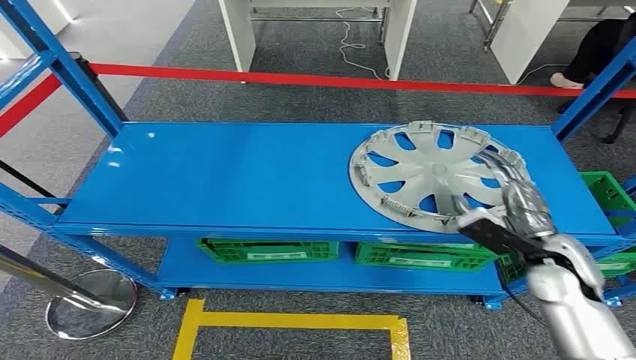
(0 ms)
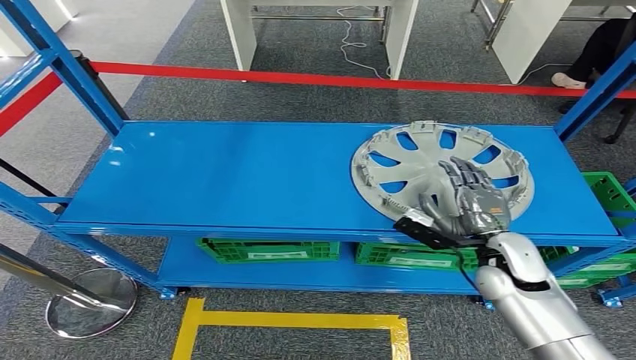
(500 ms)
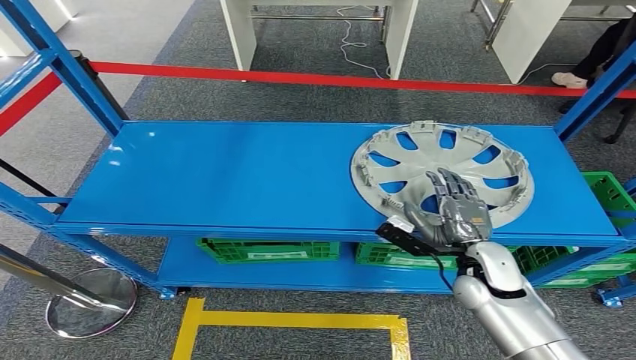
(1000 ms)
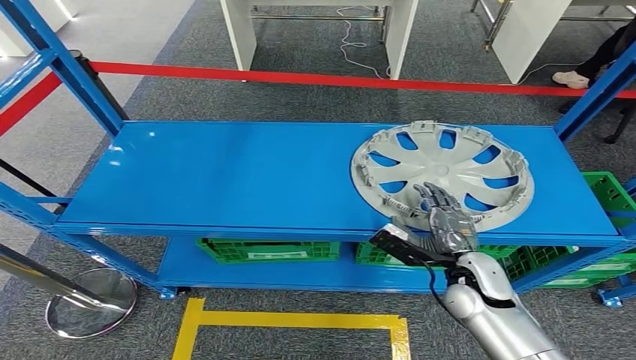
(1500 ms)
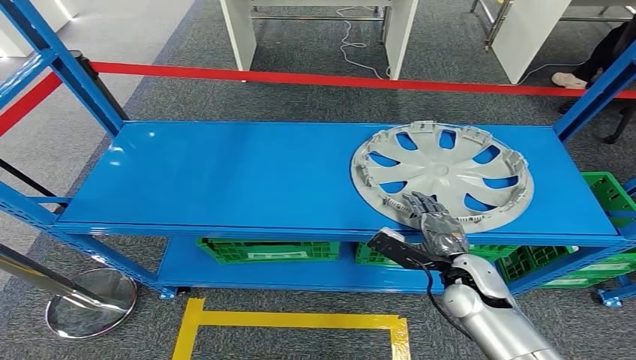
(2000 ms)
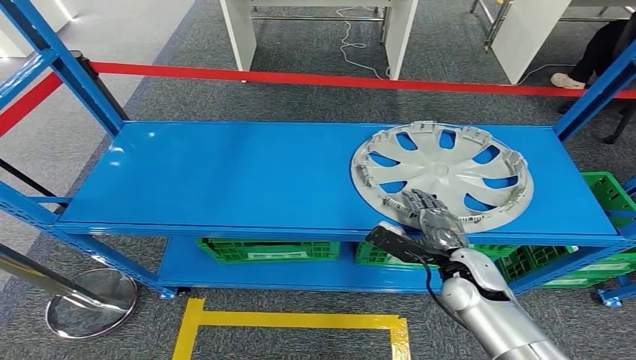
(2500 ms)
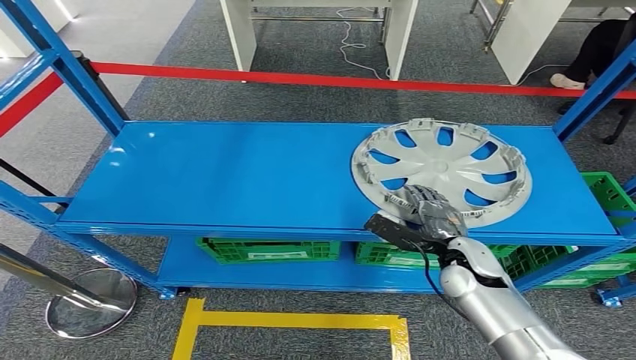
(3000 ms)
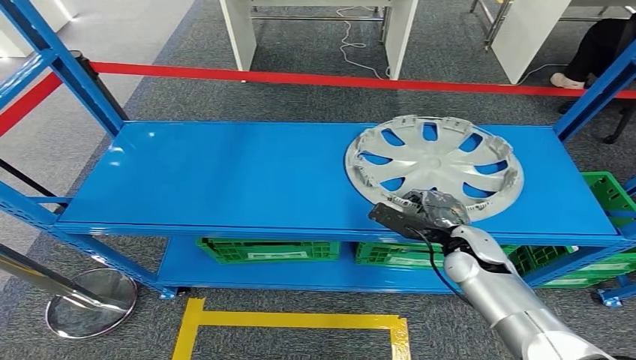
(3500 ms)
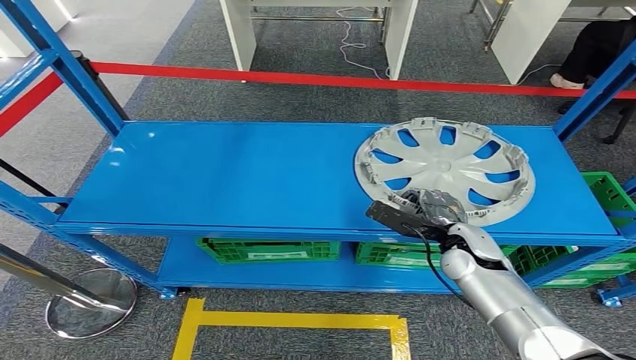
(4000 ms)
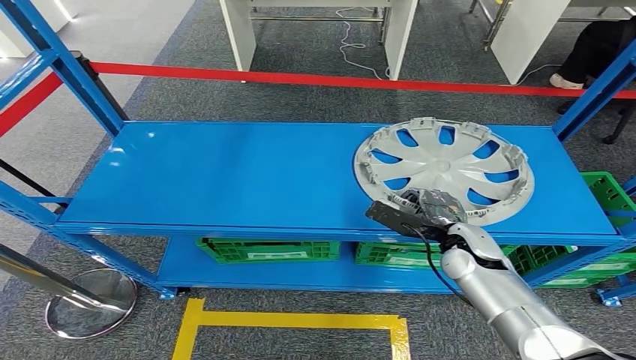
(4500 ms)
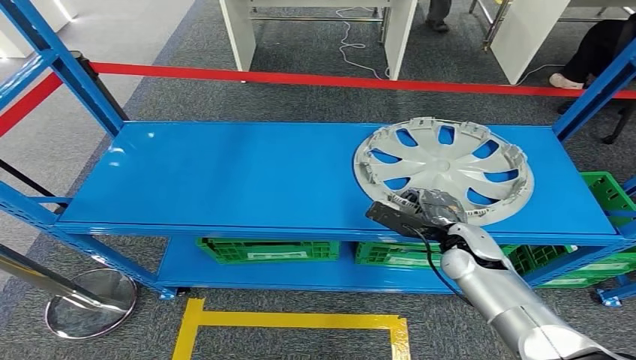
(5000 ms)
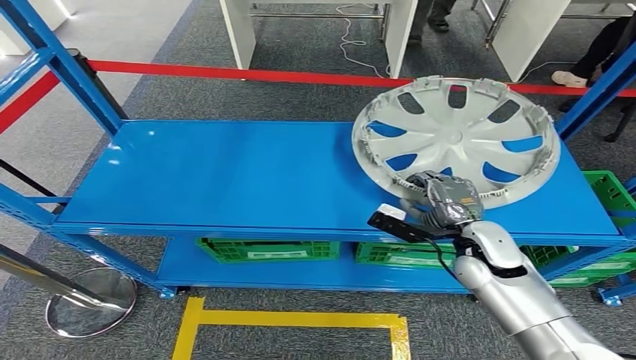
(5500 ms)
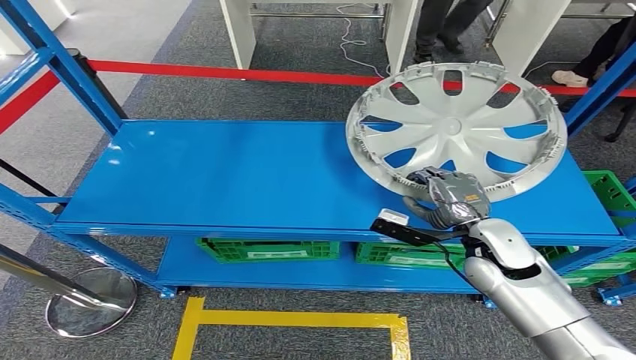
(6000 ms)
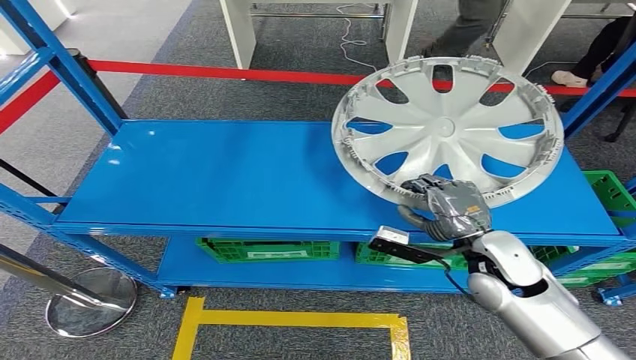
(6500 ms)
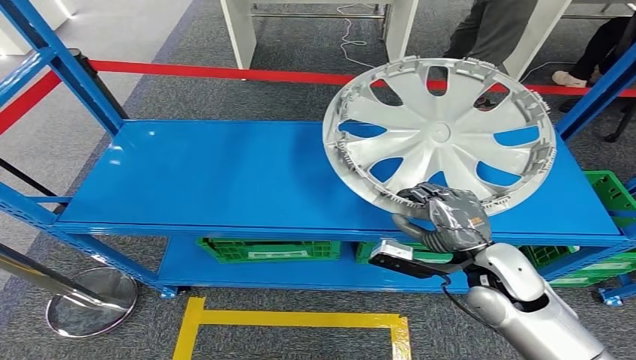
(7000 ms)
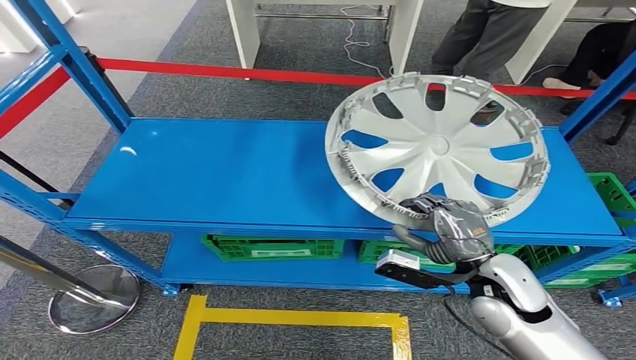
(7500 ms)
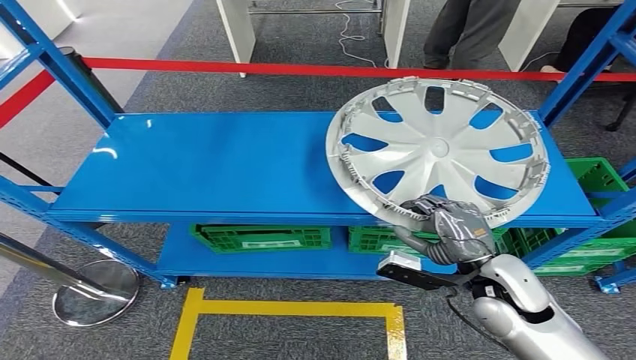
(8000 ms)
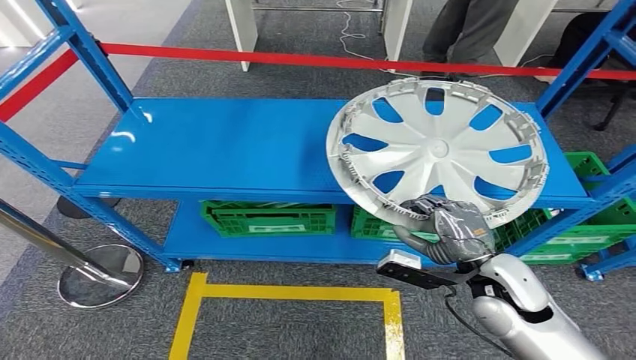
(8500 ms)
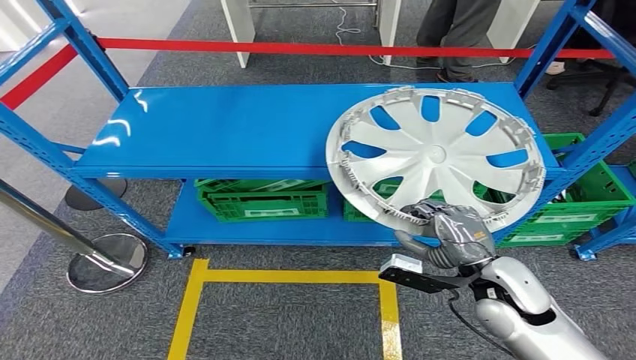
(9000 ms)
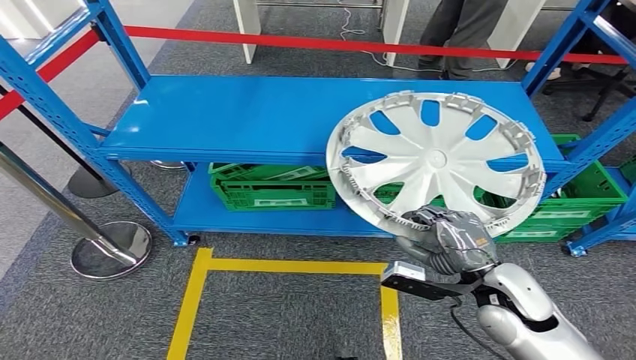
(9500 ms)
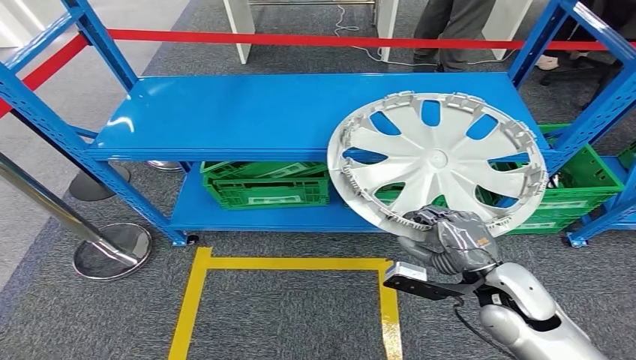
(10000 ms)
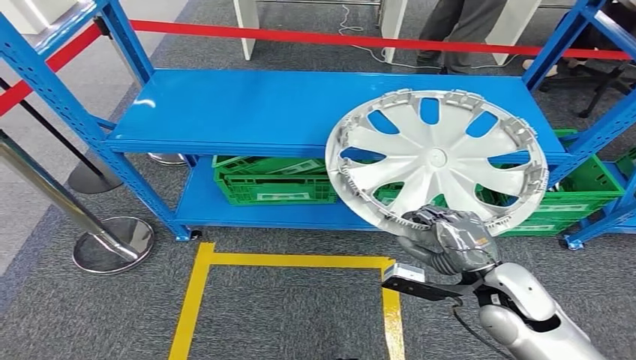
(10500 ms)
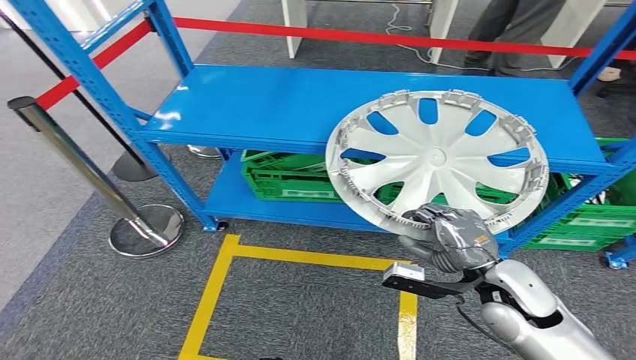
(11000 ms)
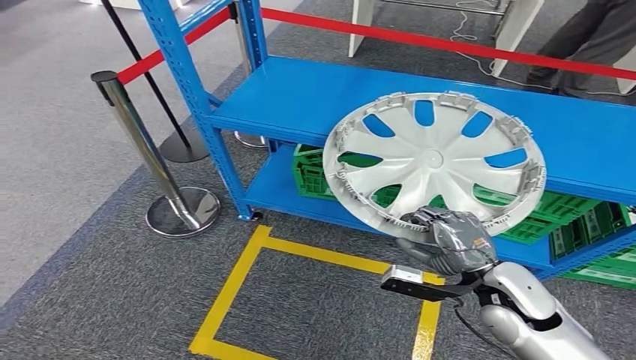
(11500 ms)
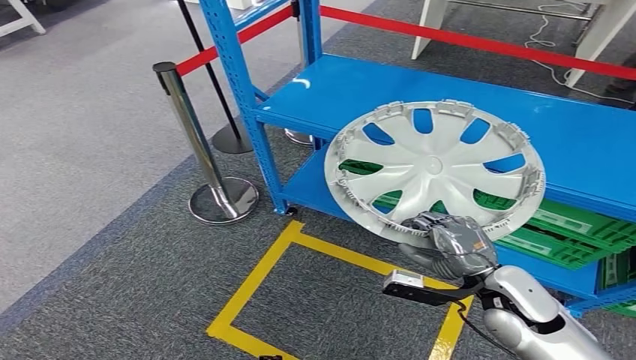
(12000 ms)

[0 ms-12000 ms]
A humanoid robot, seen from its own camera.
Step, 0 ms to 6000 ms: Pick up the small component from the shelf.
2000 ms to 4000 ms: The right hand heads forward, covering about 5 cm.

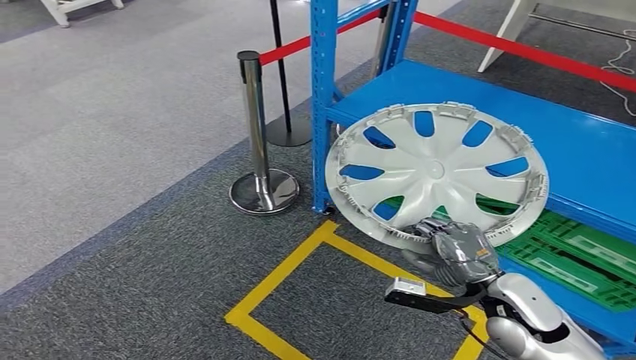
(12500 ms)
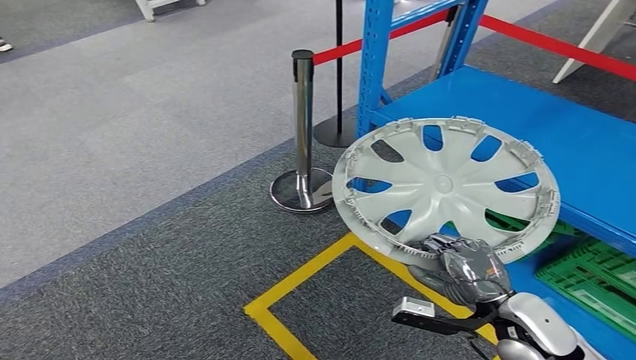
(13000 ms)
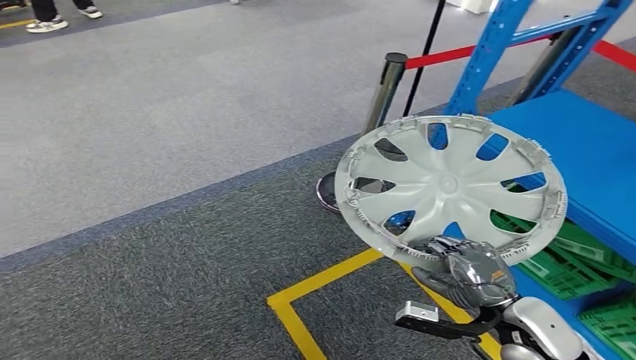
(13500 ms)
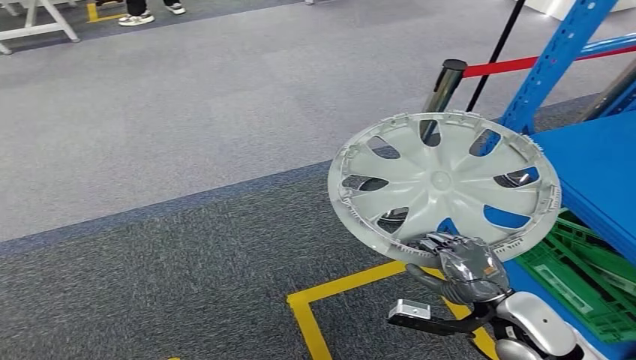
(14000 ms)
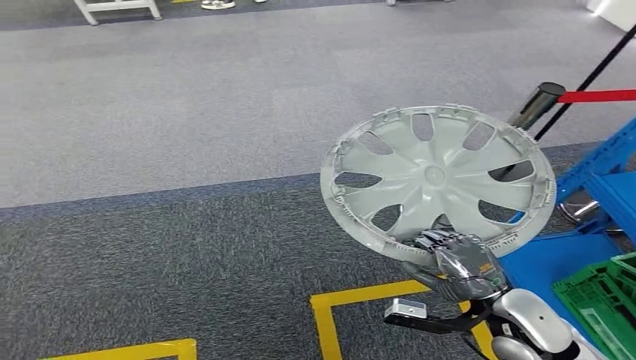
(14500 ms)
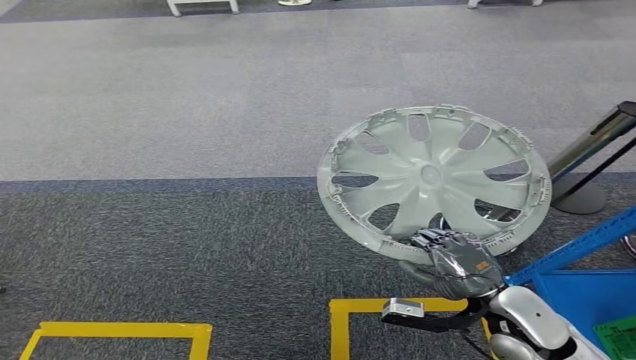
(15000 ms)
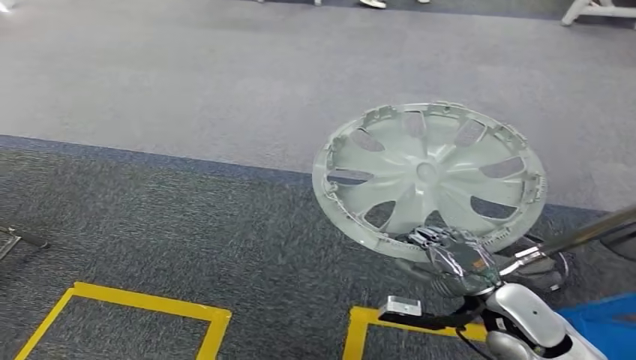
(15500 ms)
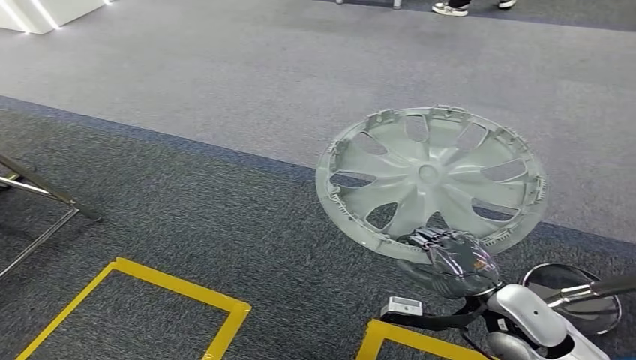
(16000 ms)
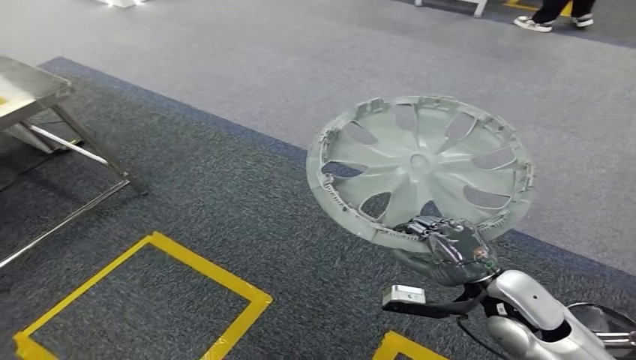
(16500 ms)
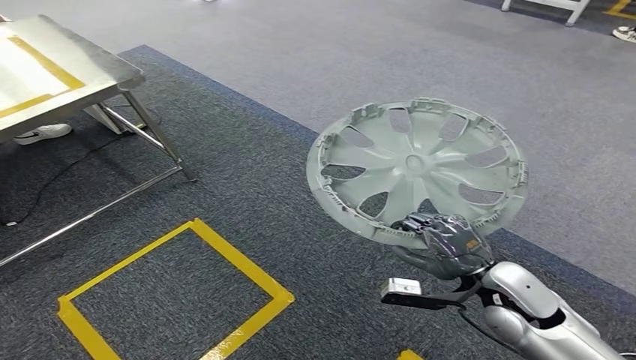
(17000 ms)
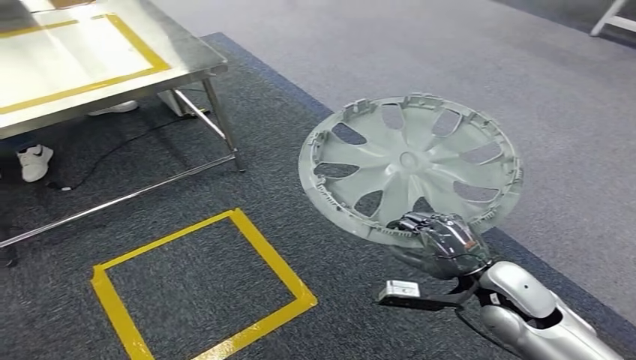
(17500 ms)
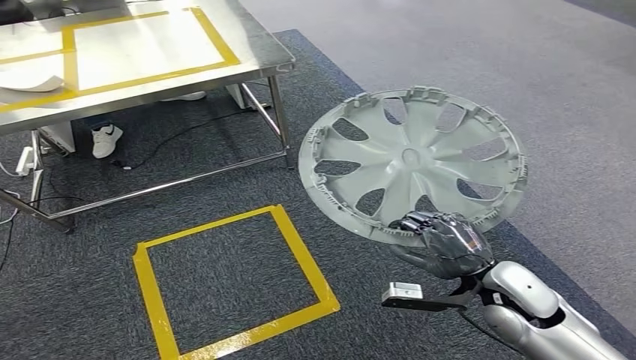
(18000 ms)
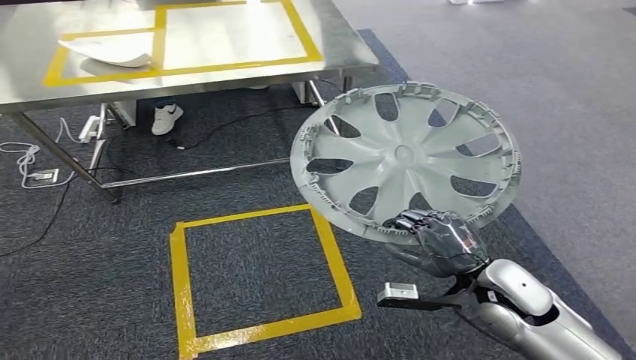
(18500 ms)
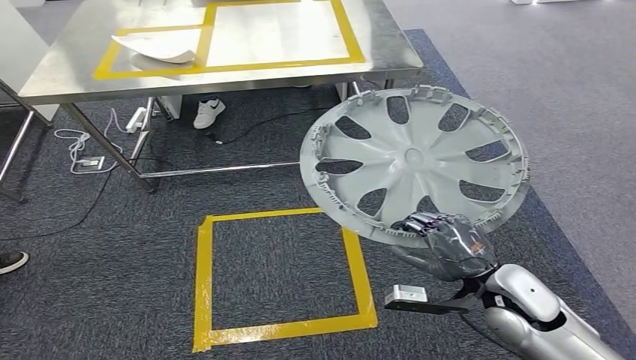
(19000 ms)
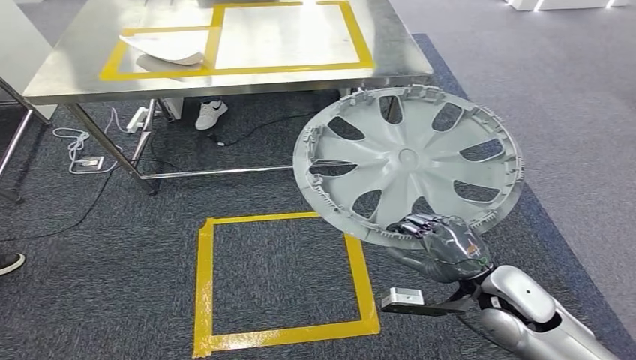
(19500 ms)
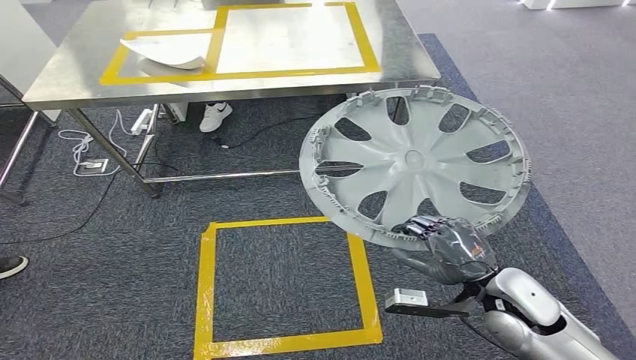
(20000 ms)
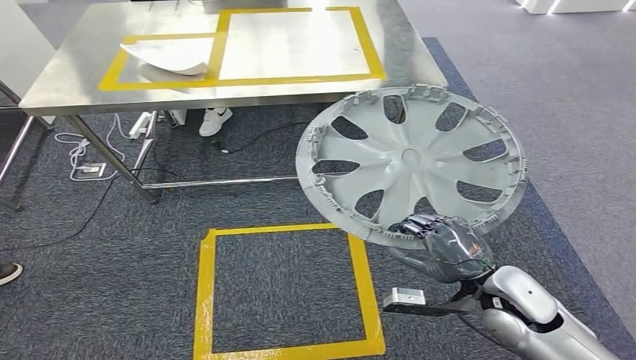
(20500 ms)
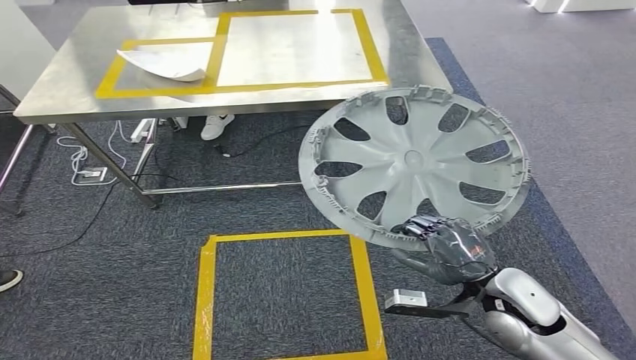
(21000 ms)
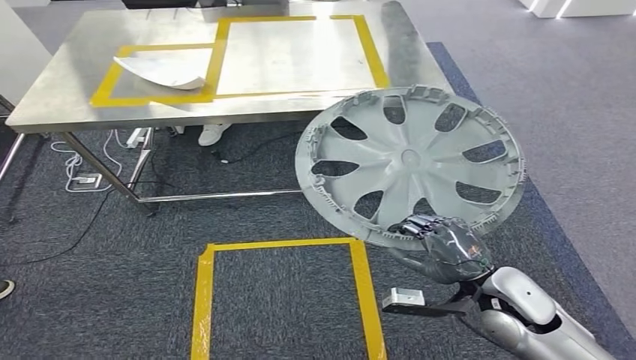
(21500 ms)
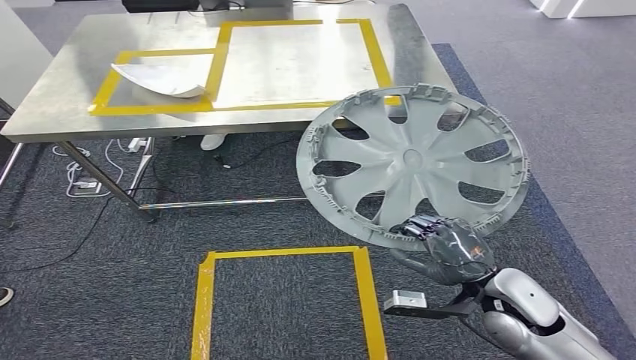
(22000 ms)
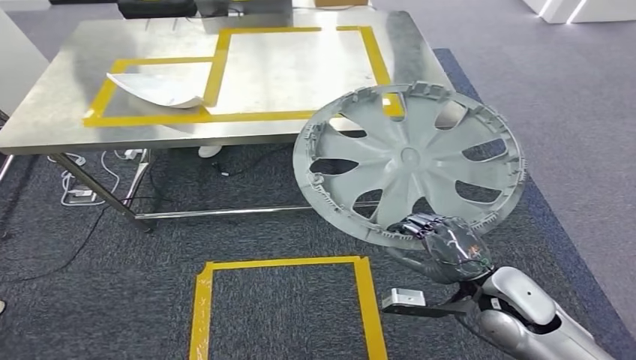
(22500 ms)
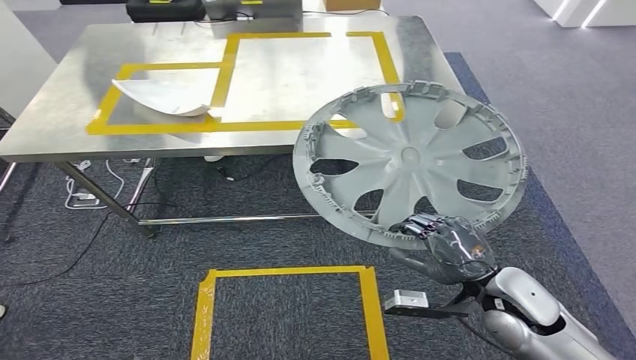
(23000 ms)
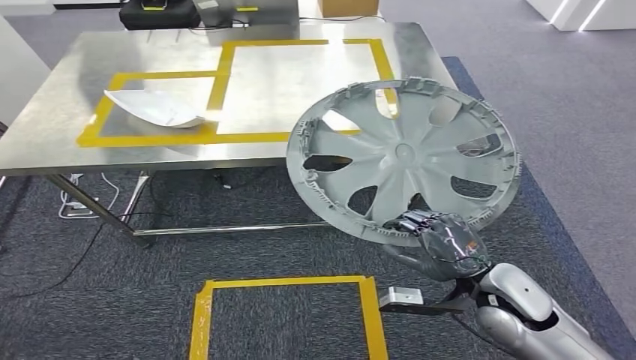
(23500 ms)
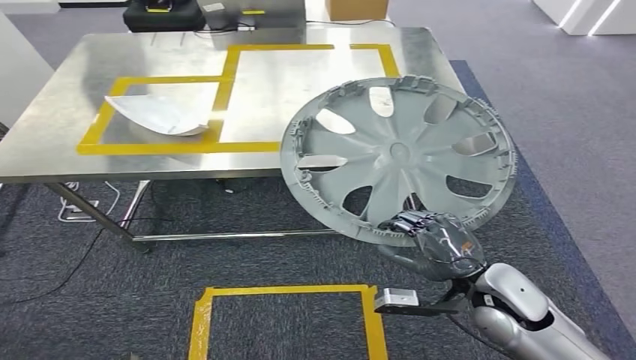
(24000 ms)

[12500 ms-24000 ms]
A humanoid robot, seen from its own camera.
Step, 12500 ms to 20000 ms: Move the small component to the workbench.
